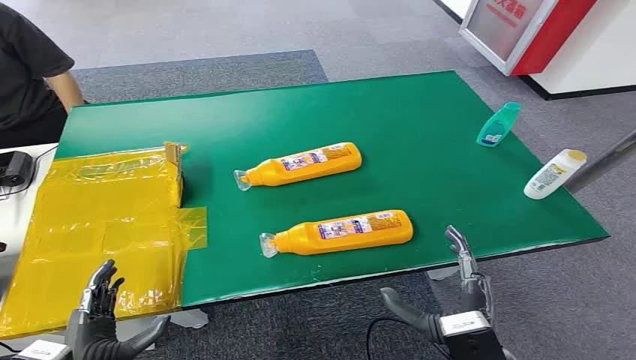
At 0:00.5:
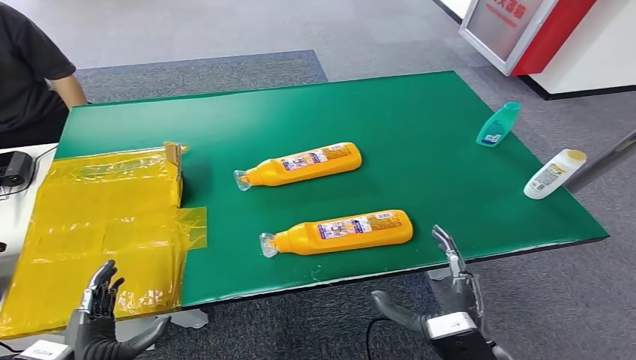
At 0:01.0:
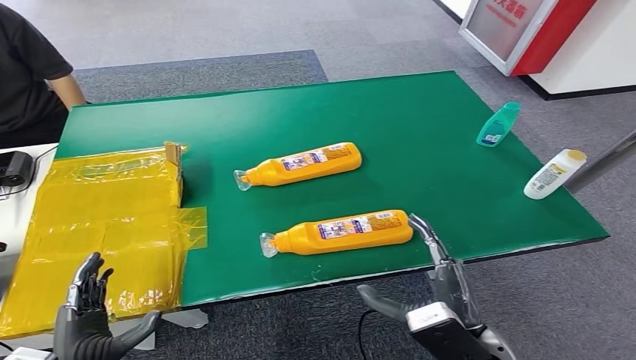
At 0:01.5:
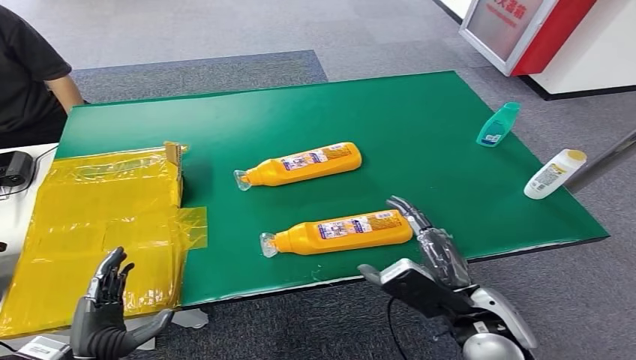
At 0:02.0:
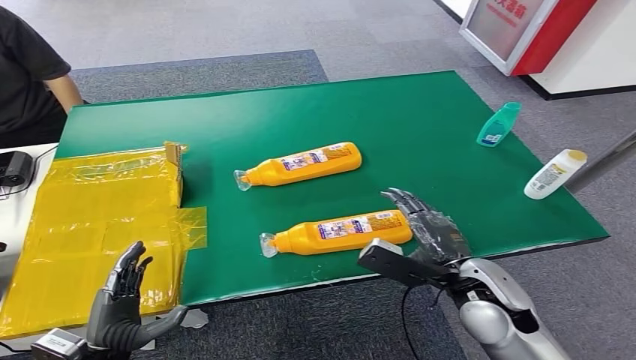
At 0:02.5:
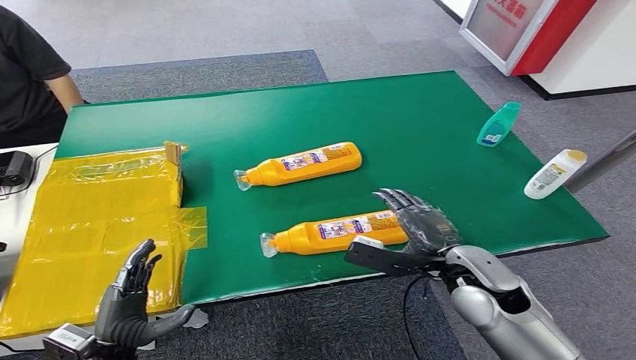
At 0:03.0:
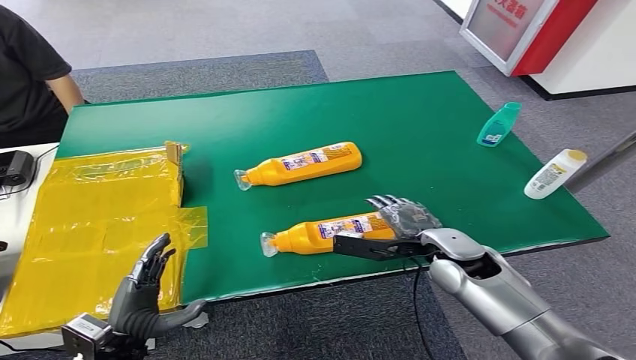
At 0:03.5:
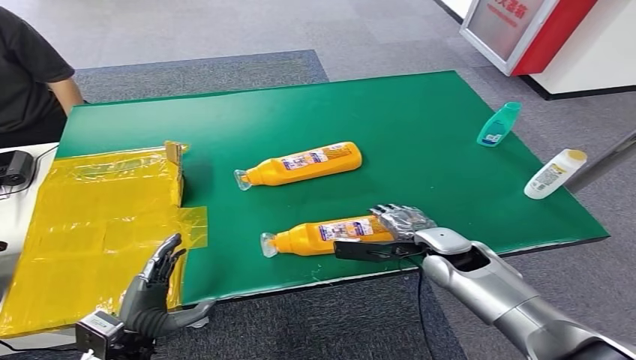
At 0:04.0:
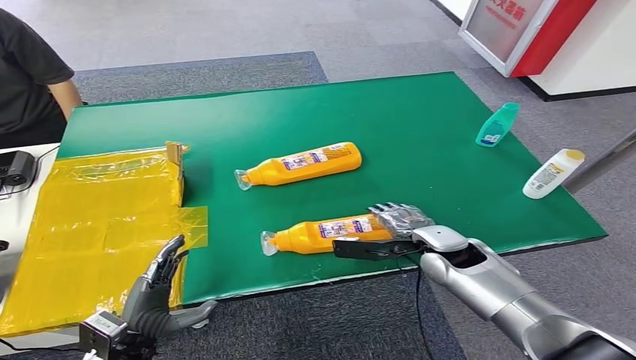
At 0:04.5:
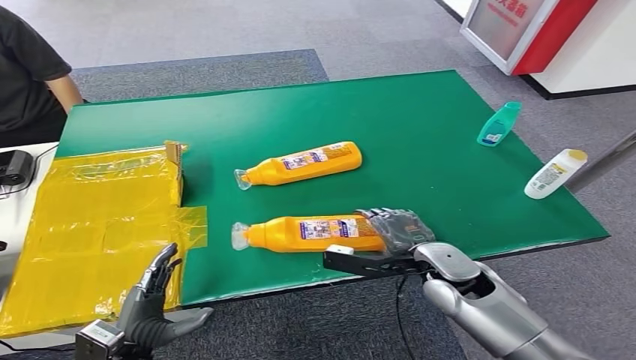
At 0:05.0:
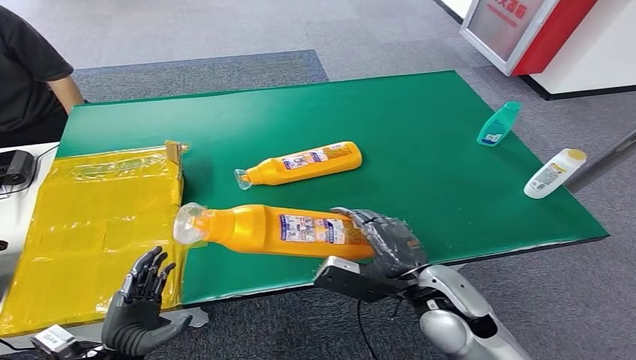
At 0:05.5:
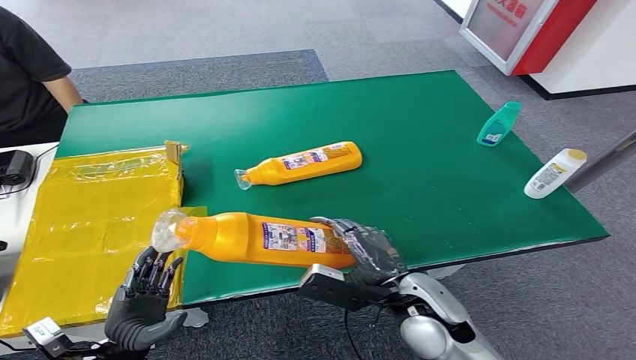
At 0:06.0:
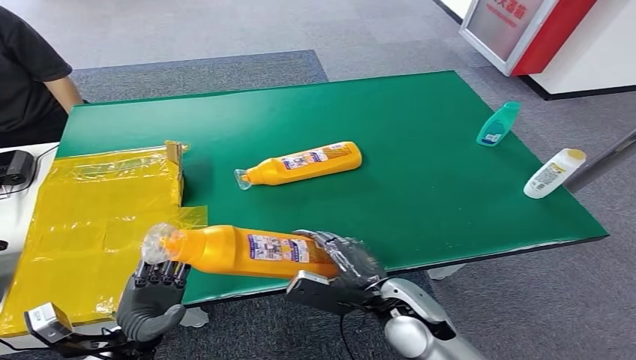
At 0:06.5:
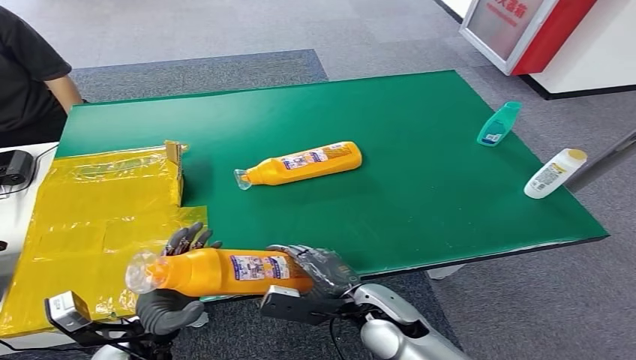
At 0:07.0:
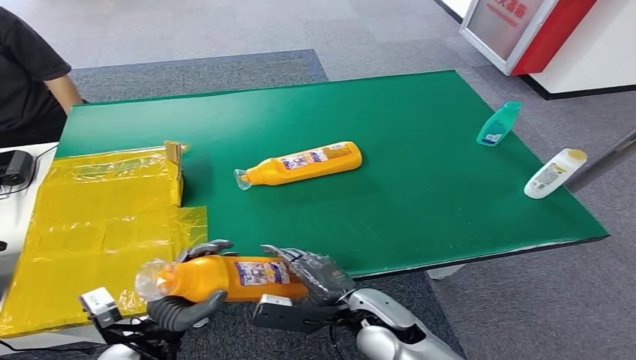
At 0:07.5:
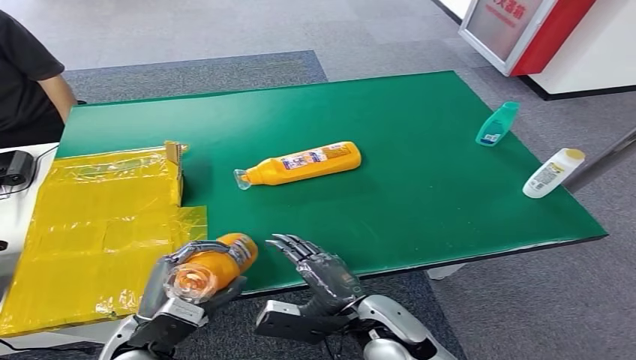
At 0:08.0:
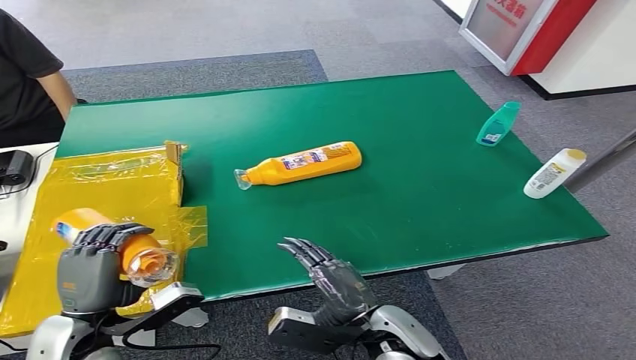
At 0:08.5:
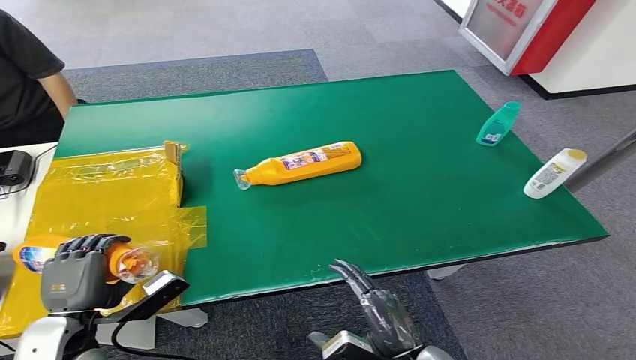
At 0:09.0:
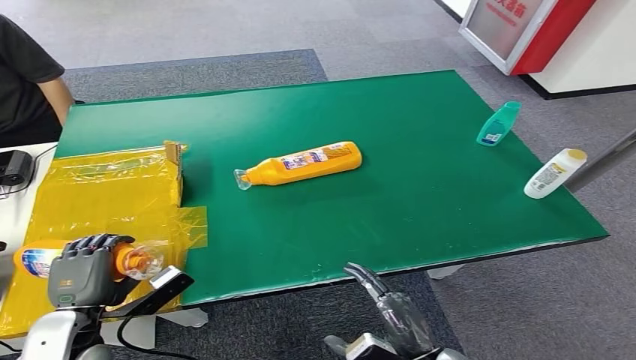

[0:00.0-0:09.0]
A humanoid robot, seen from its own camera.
Step, 0:00.0 to 0:04.5: Pick up the bottle from the table.
0:02.0 to 0:04.5: The right hand travels forward by some 5 cm.
0:04.5 to 0:07.0: The right hand shifts roughly 15 cm to the left and backward. Meanwhile the left hand moves approximately 5 cm.
0:07.0 to 0:09.0: The right hand heads backward and to the right, covering about 15 cm. The left hand heads to the left, covering roughly 10 cm.

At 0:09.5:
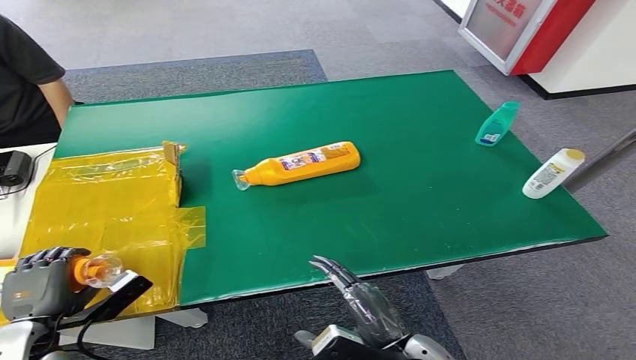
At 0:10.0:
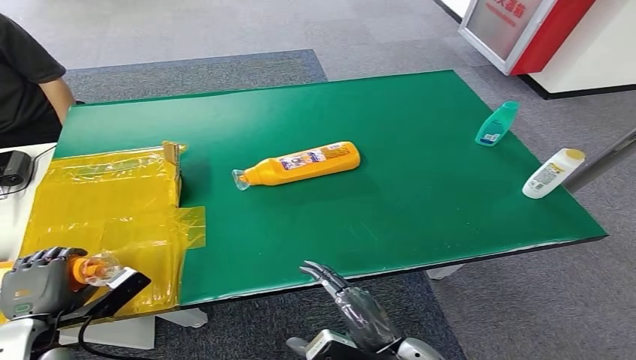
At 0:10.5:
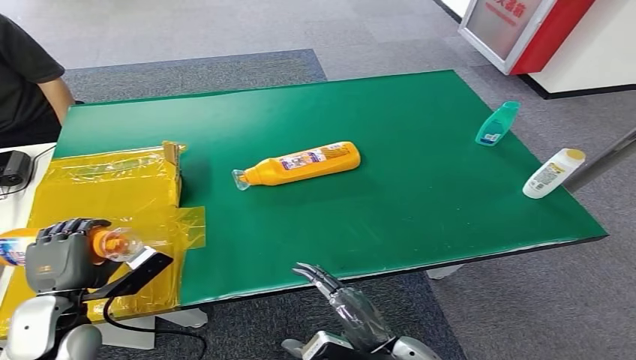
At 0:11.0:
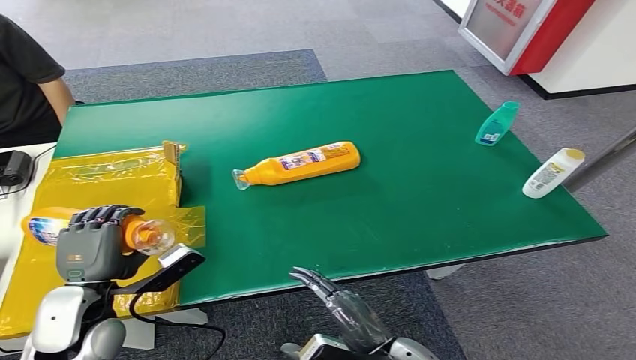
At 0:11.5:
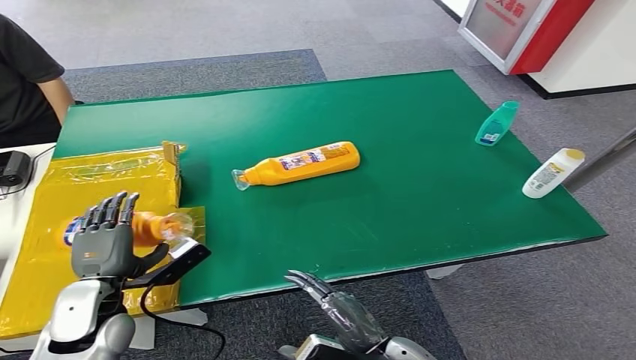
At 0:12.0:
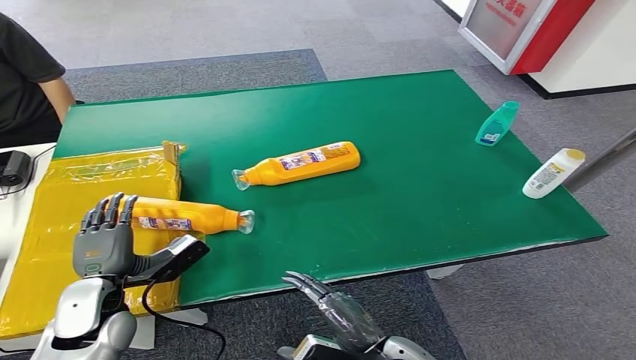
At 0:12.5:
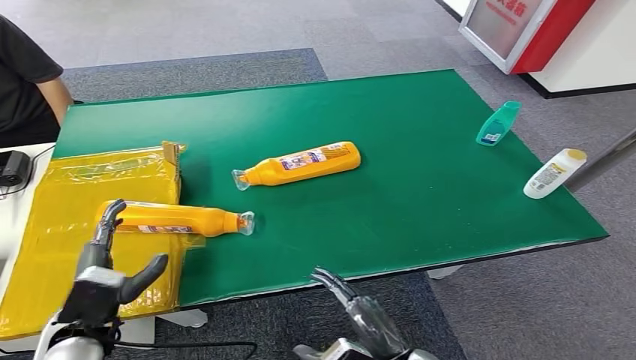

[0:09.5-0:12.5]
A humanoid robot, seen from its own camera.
Step, 0:09.5 to 0:12.5: Turn the bottle to the front side.
0:09.5 to 0:11.0: The left hand moves to the right, some 10 cm.
